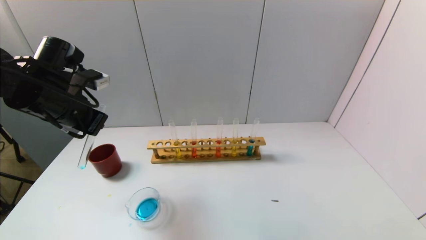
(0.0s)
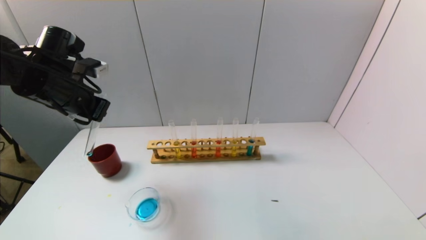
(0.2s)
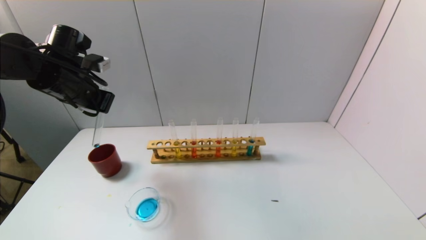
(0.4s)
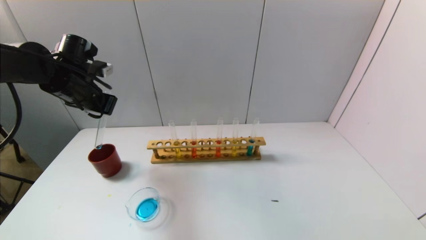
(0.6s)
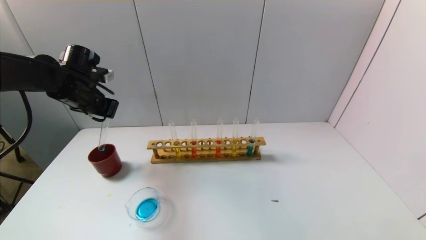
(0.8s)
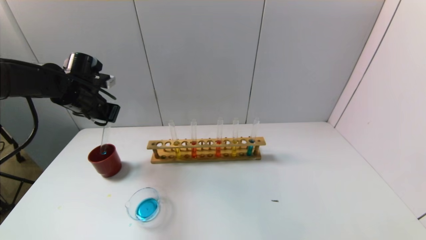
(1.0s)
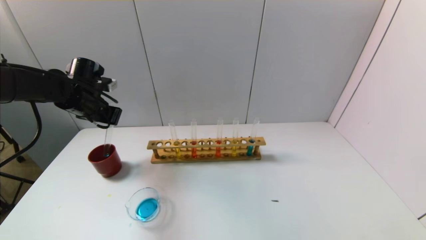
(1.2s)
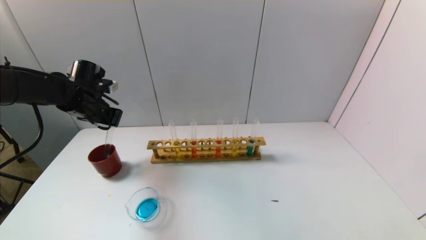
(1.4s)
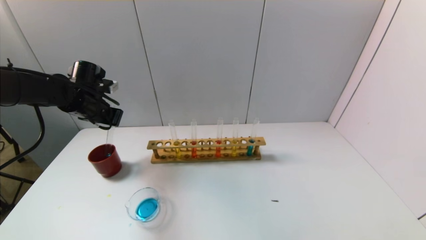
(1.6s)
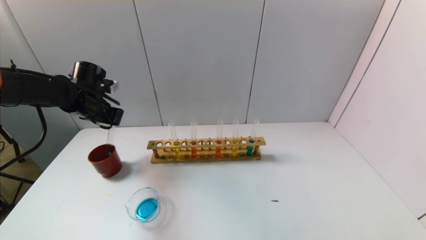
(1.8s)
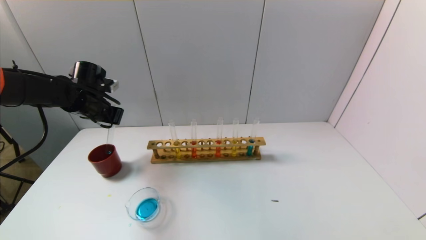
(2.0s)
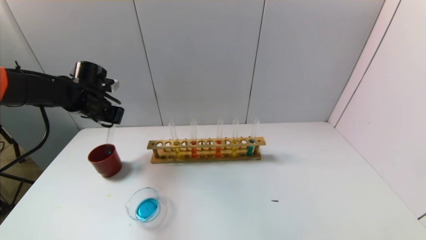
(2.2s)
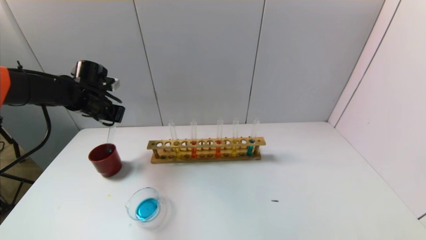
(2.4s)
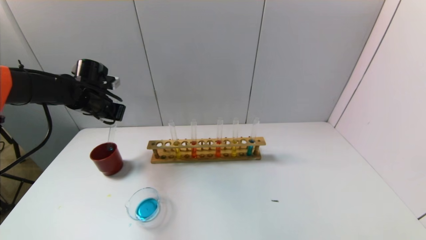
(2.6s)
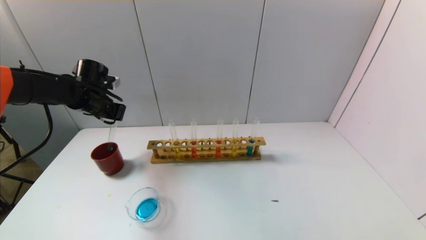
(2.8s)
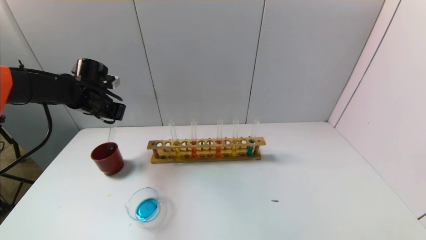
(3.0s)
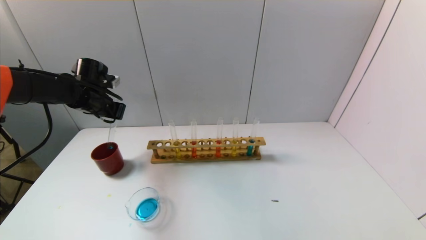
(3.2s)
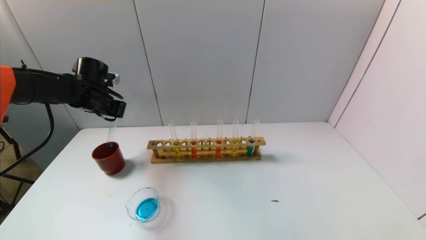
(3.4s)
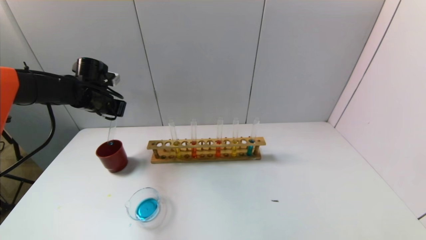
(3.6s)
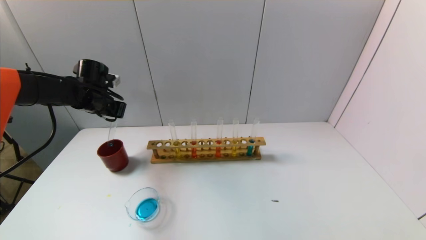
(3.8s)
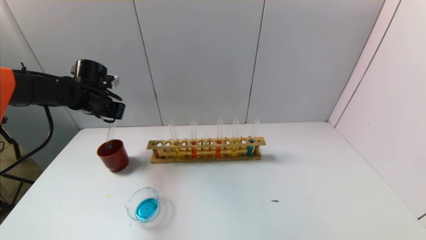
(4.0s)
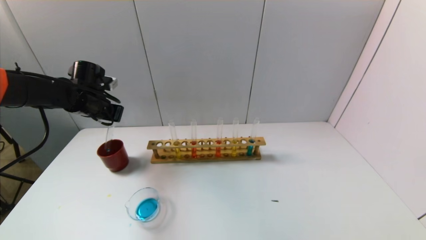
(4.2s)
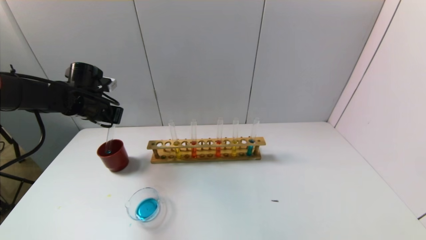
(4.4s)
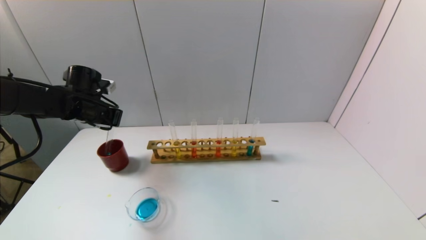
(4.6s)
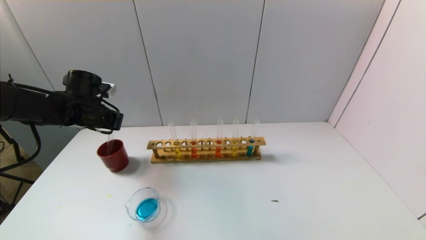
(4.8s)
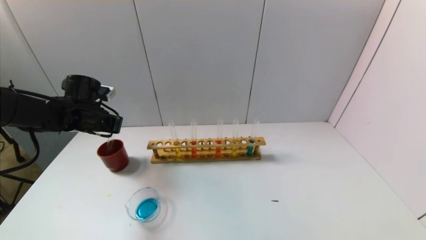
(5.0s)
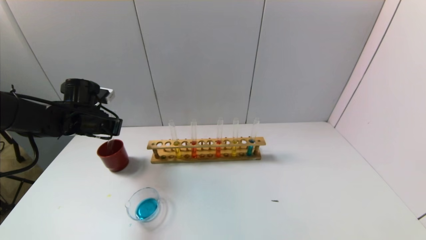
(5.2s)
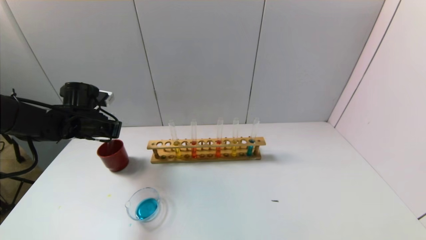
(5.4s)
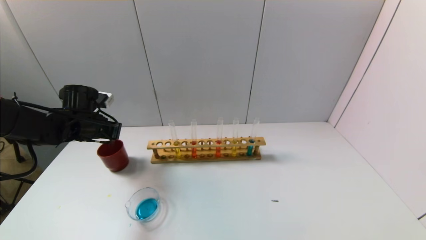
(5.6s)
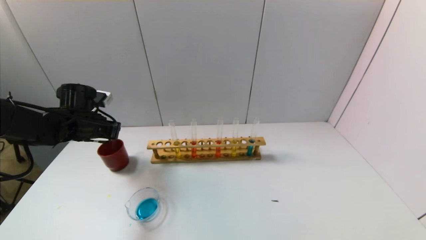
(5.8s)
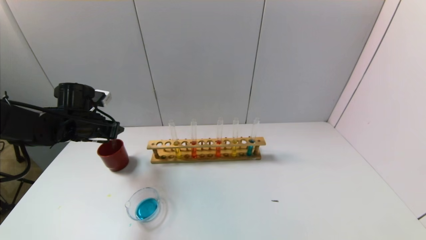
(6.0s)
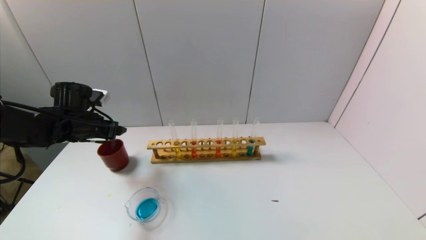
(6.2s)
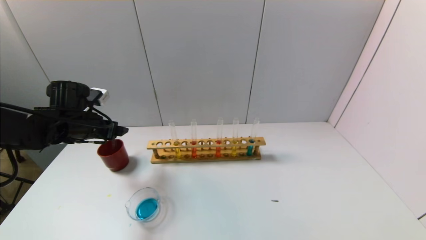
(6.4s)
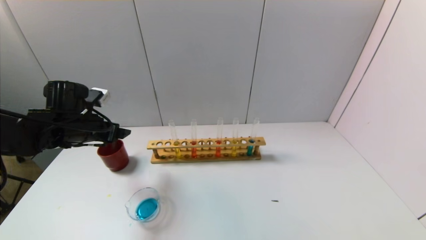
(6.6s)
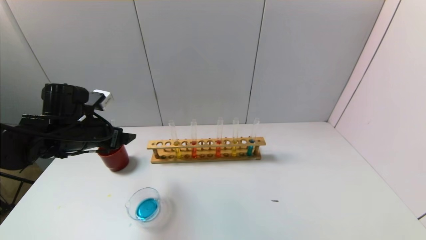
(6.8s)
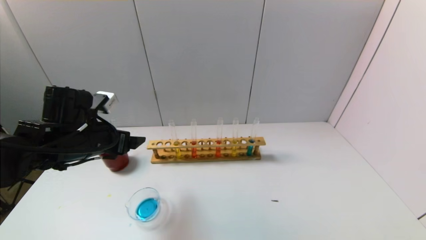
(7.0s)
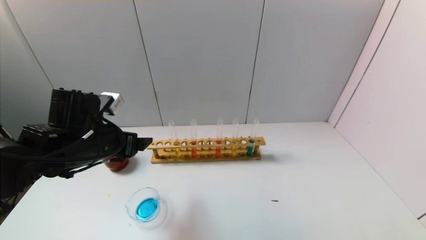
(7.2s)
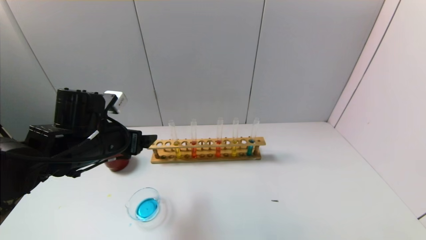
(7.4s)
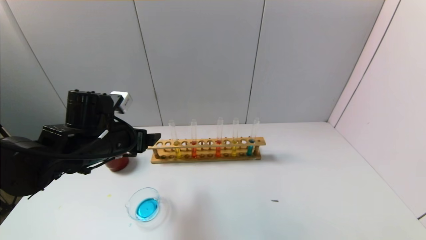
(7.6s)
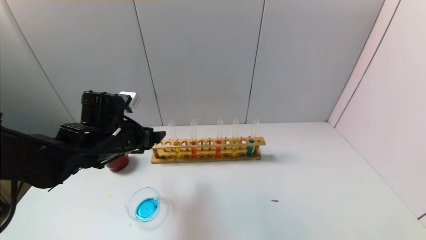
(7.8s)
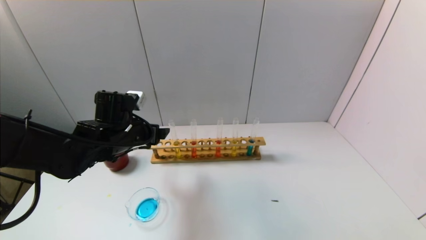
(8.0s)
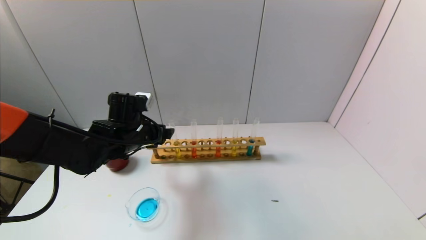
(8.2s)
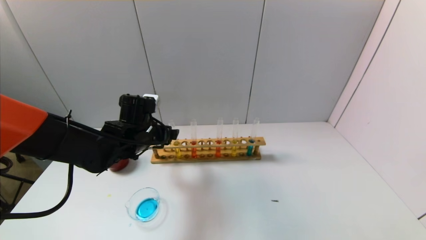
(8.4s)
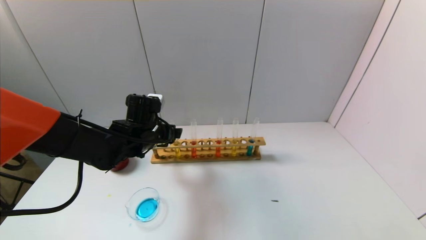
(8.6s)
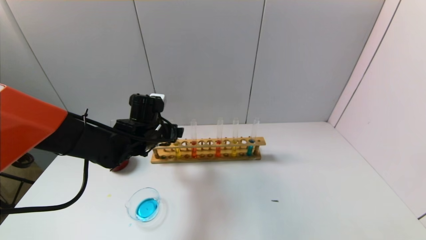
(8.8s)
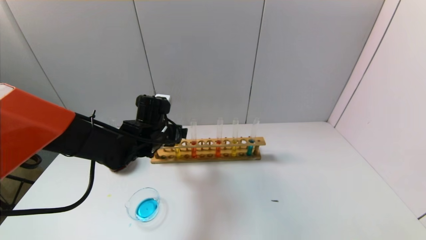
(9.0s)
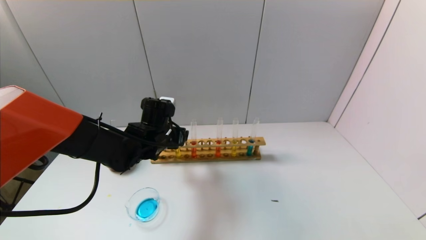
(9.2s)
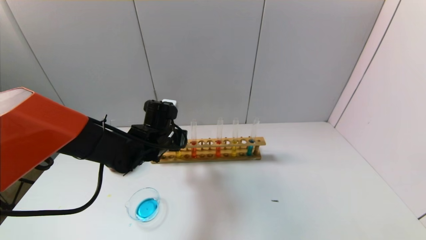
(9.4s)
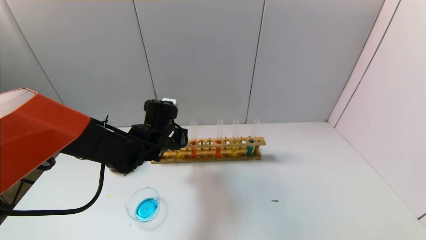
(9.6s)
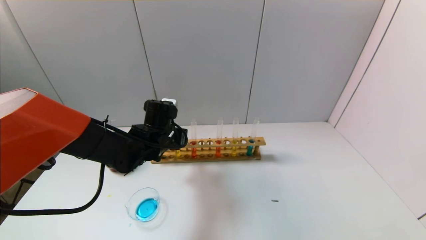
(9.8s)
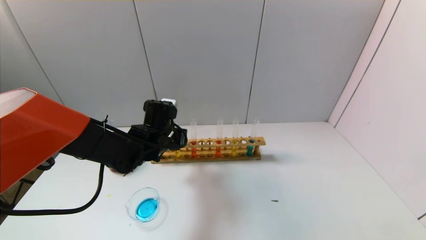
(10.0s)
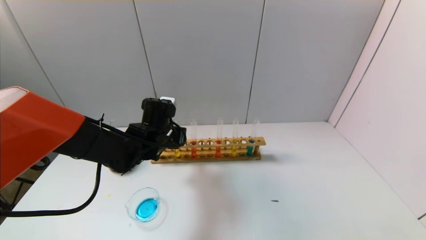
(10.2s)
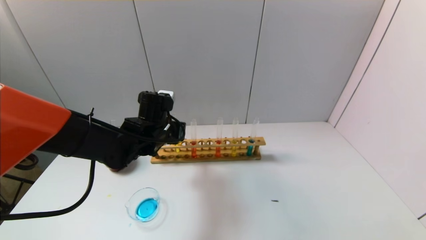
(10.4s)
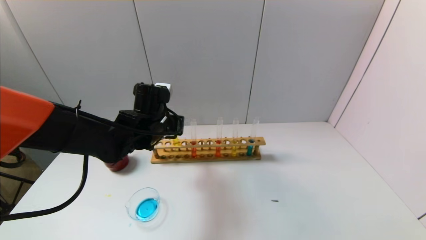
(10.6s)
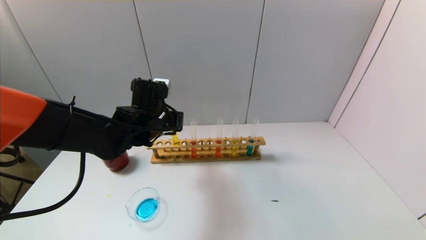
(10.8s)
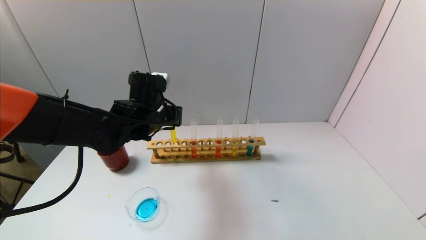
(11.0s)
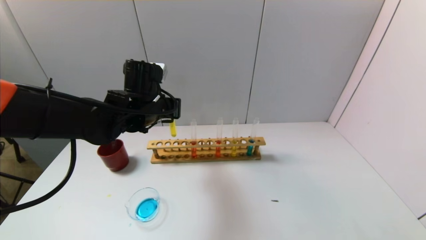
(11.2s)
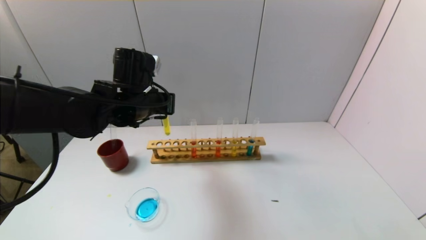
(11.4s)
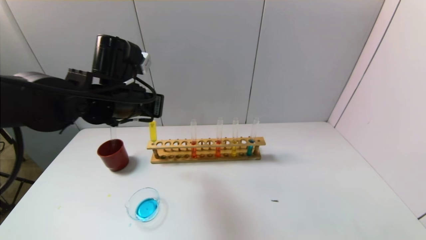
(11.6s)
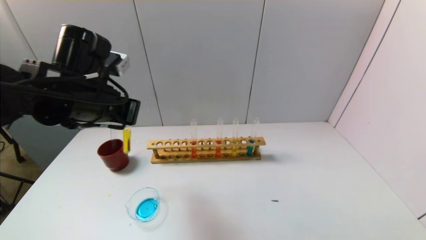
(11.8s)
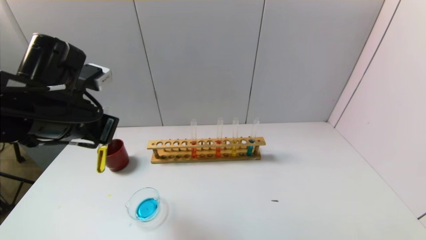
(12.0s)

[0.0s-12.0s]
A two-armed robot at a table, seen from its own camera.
Task of the whole recording: pick up the test tube with yellow pigment and the test tube with blue pigment by grippers and pour them into the beaker.
Step, 0.0s to 5.8s: Place the test tube into the brown cup with the left gripper.
Step, 6.0s to 9.8s: Grasp the yellow reagent with the left gripper.
0.0s to 1.6s: The left gripper heads forward and downward, covering approximately 10 cm.
1.6s to 4.4s: The grippers move only a little.
4.4s to 6.0s: The left gripper ends up approximately 5 cm from where it was, and opens.
6.0s to 7.6s: The left gripper shifts roughly 15 cm to the right and backward.
7.6s to 9.0s: The left gripper travels forward and to the right by approximately 10 cm.
9.0s to 10.4s: The left gripper closes up.
10.4s to 12.0s: The left gripper moves backward, upward and to the left, about 20 cm.

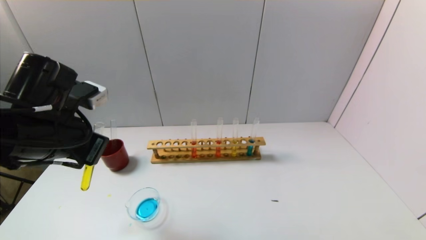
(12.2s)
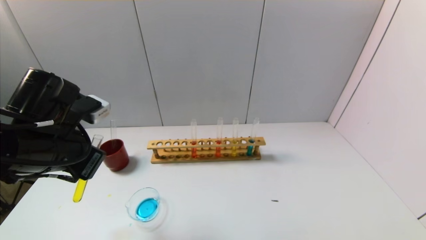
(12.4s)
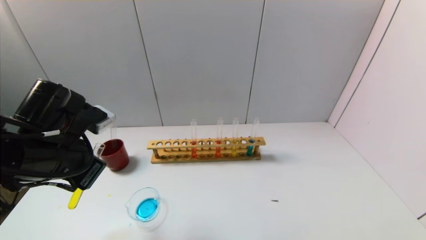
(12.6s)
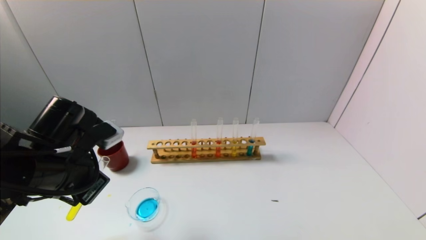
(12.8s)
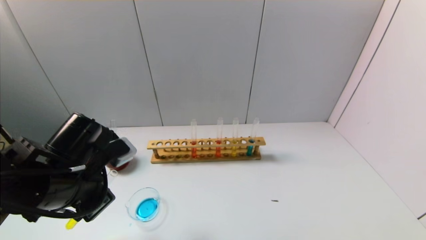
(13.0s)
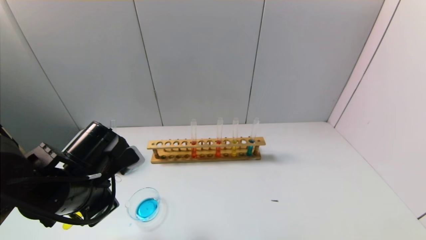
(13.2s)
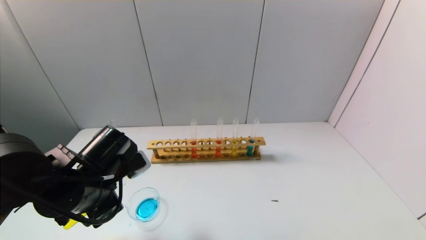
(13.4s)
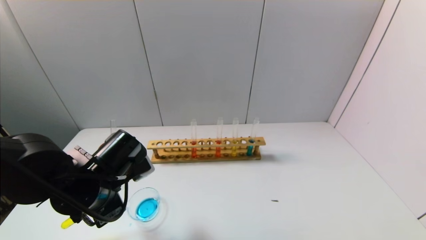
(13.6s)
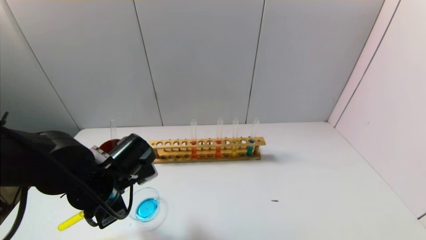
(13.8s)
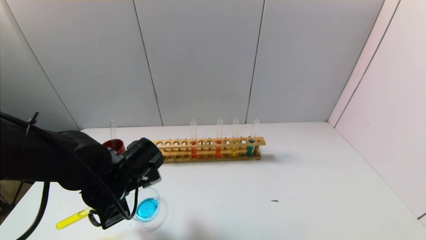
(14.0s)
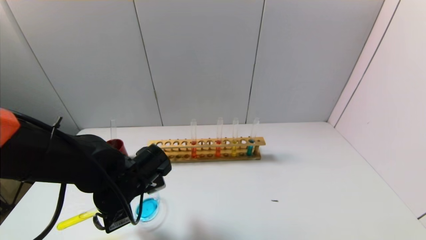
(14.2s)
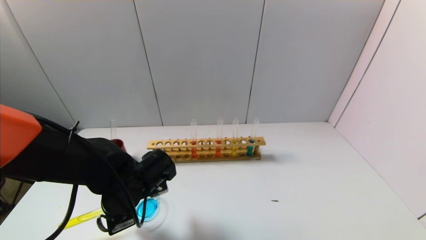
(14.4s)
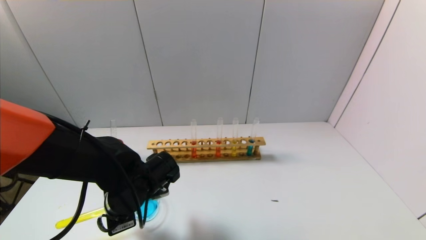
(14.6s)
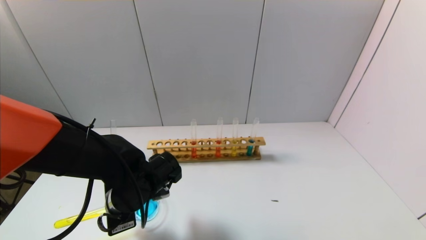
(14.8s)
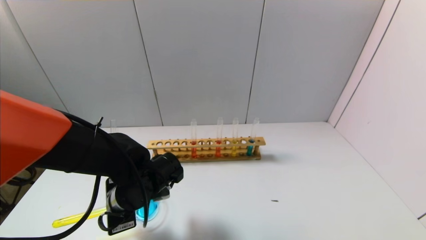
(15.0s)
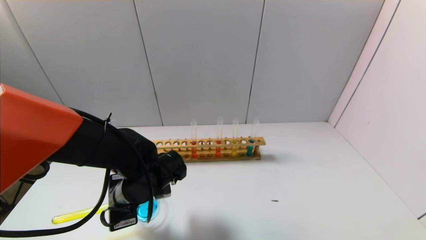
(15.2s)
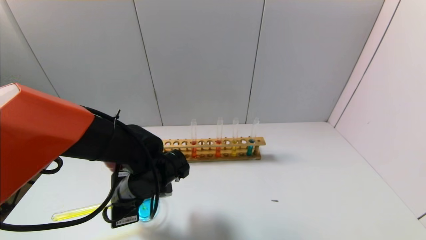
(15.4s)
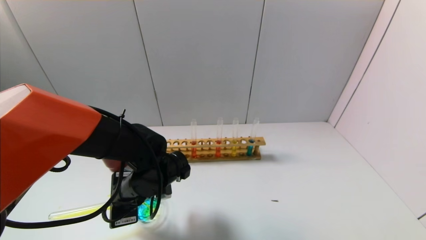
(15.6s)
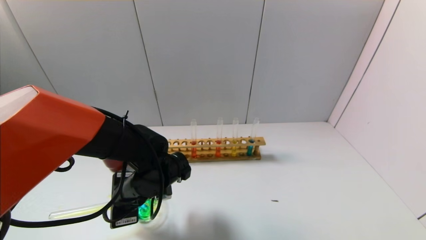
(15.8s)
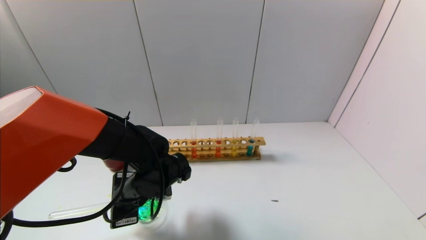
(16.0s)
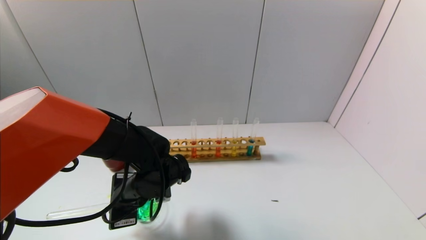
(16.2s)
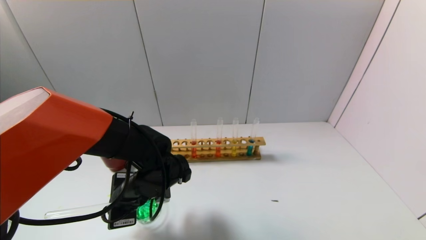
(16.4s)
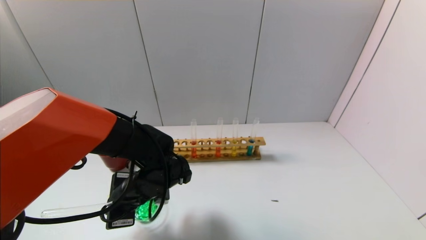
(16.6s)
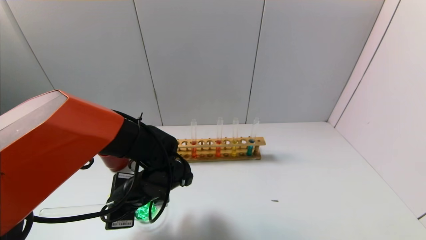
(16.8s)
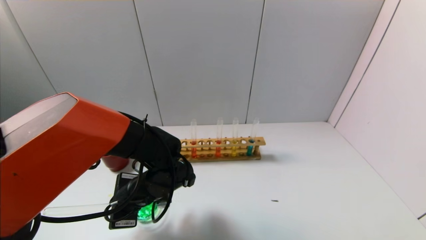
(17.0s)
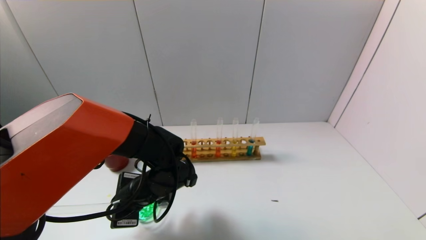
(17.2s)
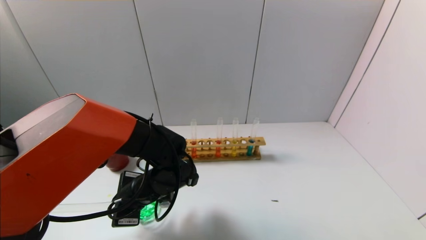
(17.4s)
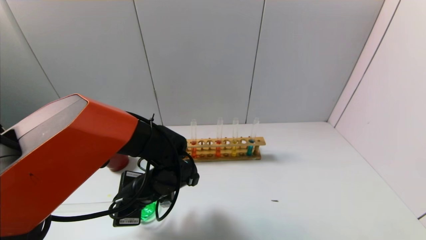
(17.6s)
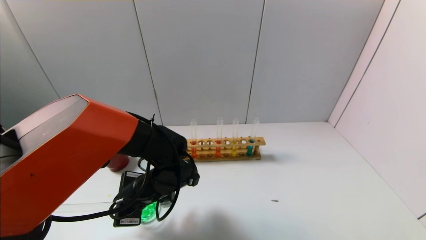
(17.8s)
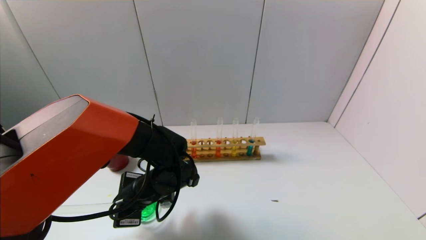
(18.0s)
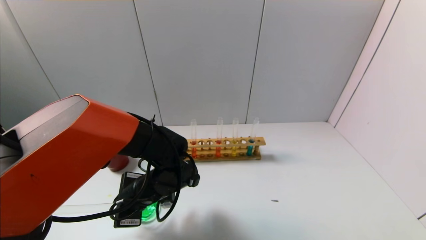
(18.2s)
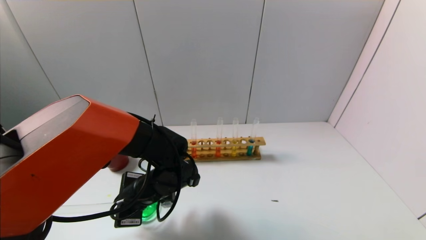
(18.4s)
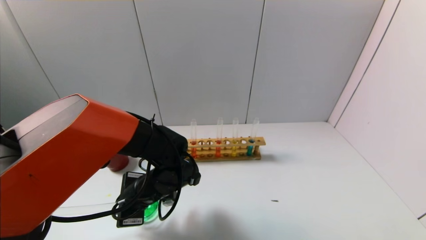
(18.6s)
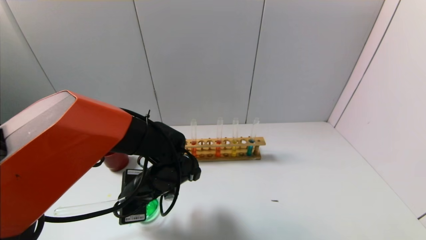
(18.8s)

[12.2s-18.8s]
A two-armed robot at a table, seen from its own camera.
Task of the whole recording: pick up the test tube with yellow pigment and the test tube with blue pigment by grippers and pour them into the beaker.
12.2s to 13.8s: The left gripper travels downward by approximately 10 cm.
13.8s to 15.4s: The left gripper ends up roughly 5 cm from where it was.
15.4s to 18.8s: The grippers stay close to where they were, moving slightly.
